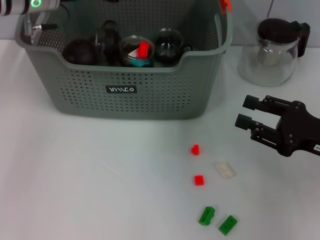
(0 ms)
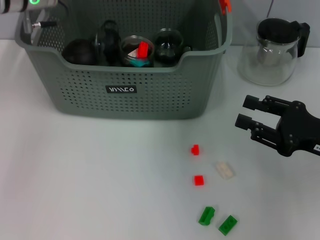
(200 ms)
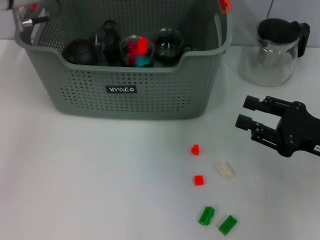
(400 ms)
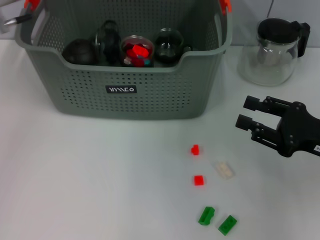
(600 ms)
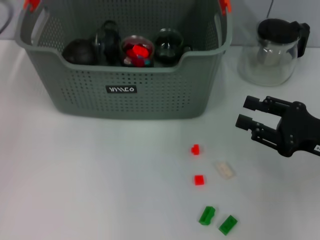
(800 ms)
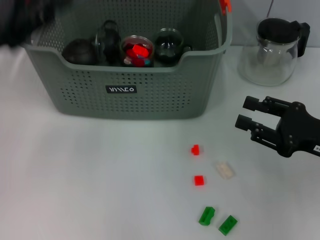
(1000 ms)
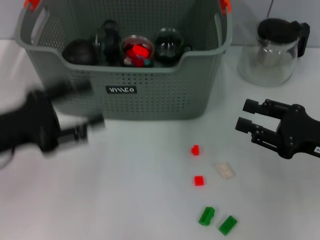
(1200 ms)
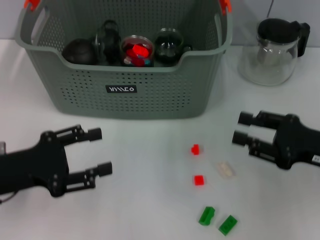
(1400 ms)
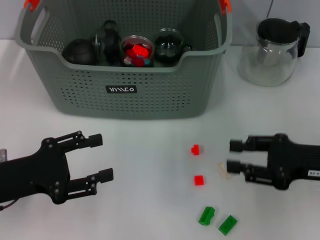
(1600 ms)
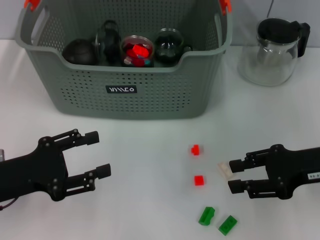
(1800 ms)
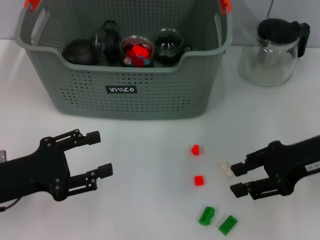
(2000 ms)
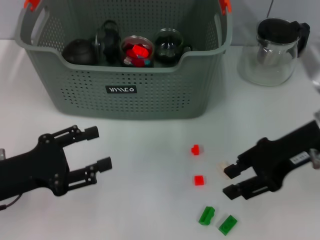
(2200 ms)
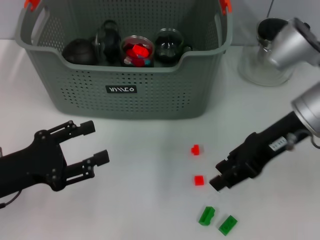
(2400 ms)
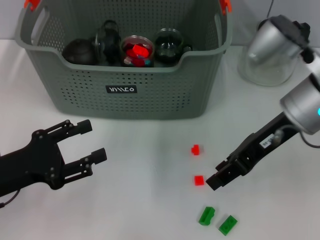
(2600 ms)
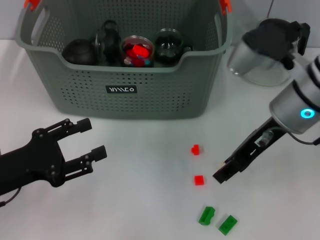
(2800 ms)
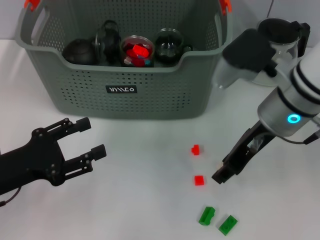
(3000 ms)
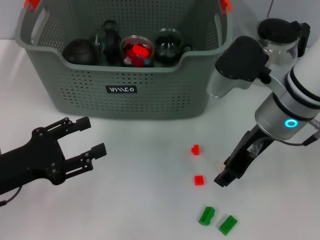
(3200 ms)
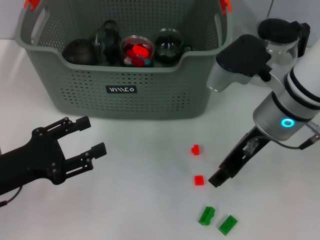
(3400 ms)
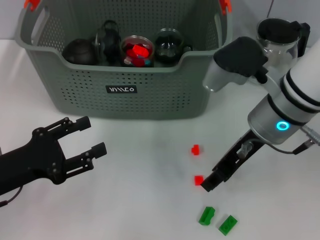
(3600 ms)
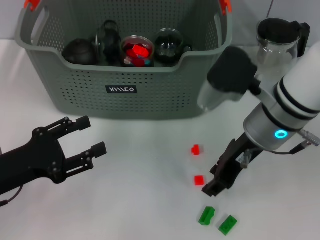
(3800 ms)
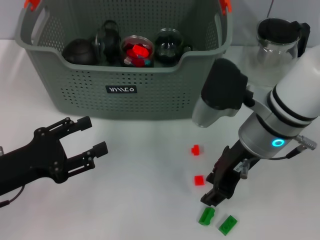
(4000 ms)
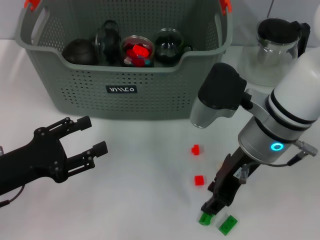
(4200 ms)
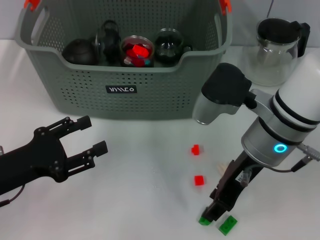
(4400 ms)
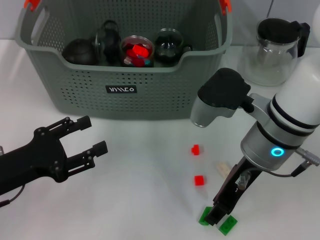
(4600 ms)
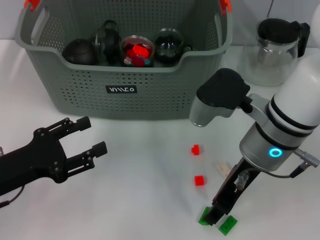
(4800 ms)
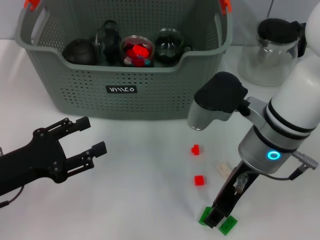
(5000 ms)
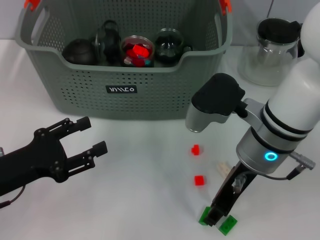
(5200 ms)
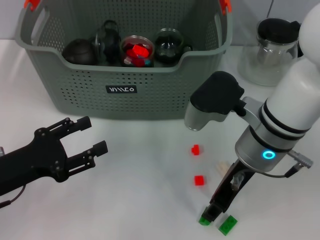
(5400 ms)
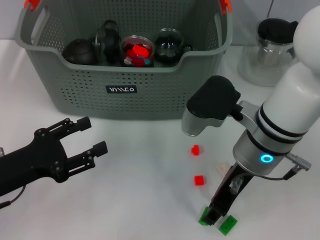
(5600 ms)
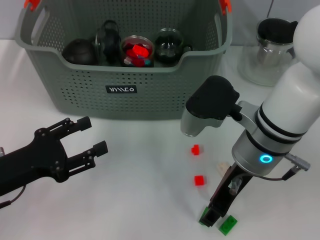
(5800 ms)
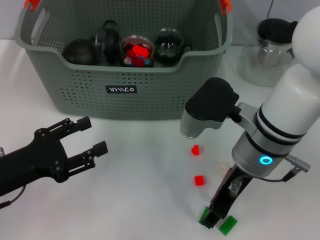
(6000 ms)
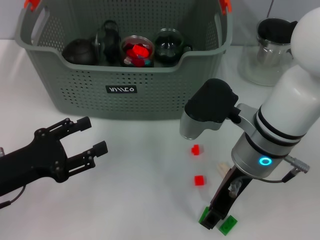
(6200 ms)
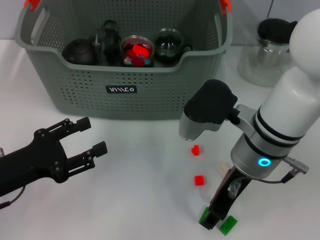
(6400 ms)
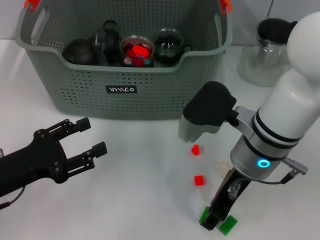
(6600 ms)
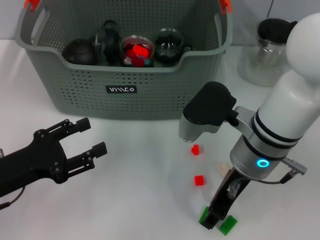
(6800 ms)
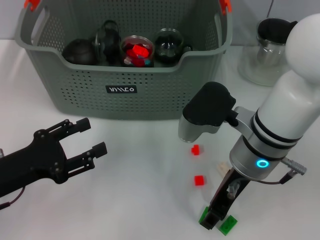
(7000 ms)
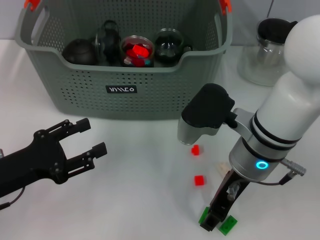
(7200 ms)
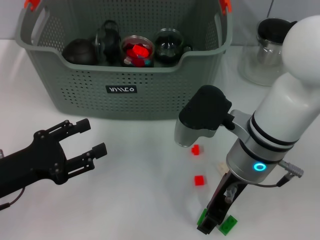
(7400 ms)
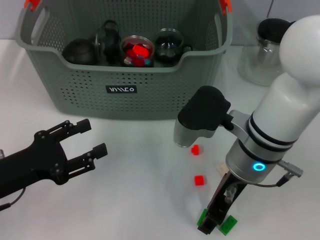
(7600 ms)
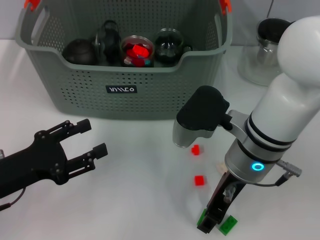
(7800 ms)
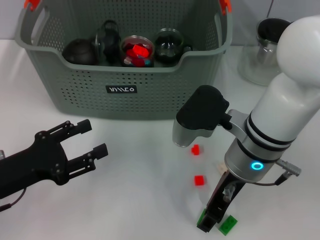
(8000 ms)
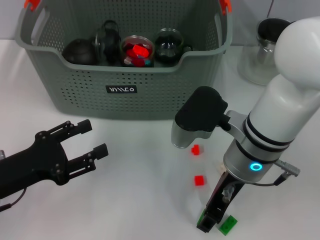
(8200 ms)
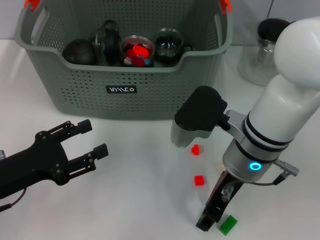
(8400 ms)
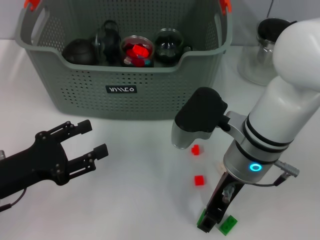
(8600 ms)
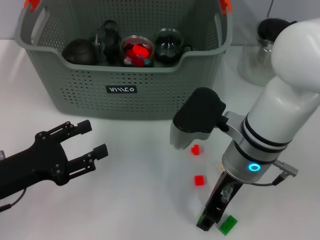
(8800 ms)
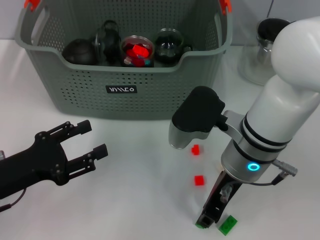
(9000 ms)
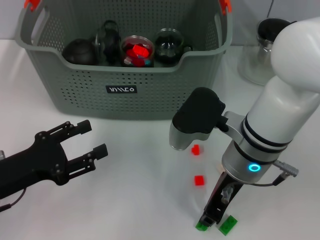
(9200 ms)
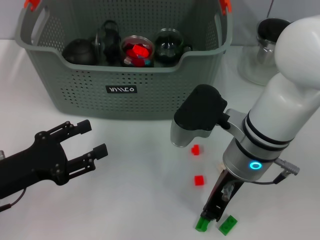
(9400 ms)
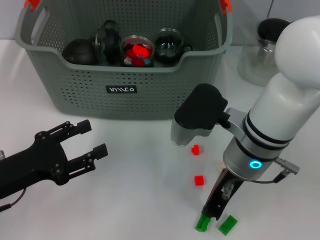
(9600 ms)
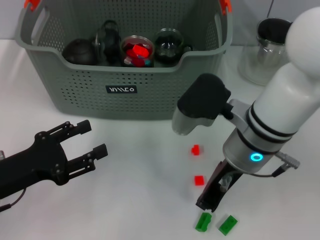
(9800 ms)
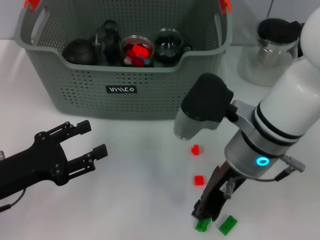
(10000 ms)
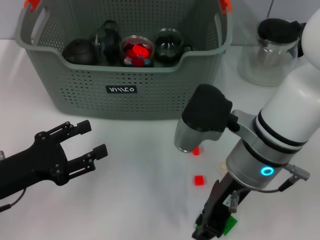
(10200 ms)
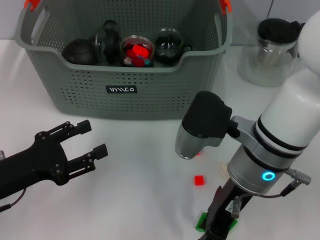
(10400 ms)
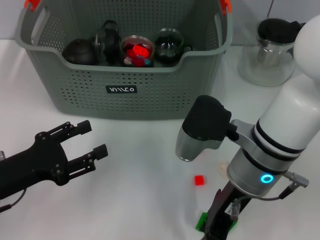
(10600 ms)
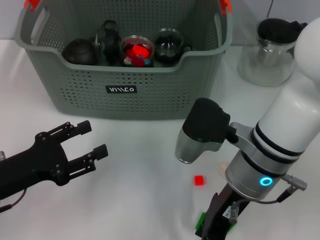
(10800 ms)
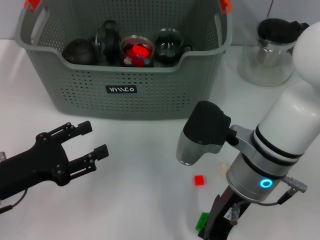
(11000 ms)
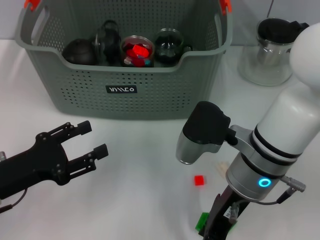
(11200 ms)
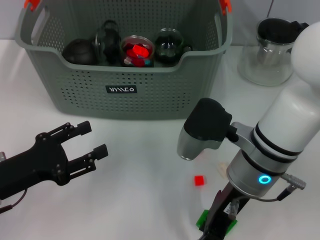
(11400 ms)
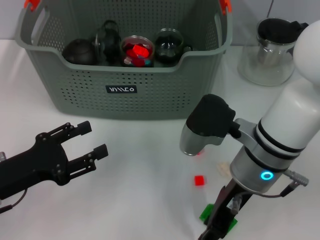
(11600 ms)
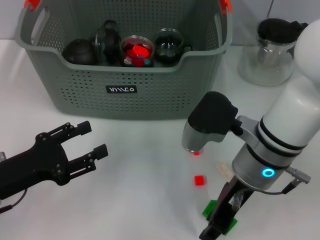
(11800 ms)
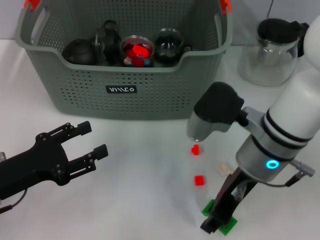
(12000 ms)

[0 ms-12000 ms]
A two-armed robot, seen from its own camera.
Task of the whole recording: pick up the teacup on the table and place it into the storage bin, pick up the block on the table and place it into the storage bin.
0 ms to 1600 ms: The left gripper moves backward and downward, roughly 25 cm.
1600 ms to 3000 ms: The right gripper shifts about 15 cm to the left, upward and forward.
3000 ms to 6000 ms: The grippers stay close to where they were, moving slightly.
6000 ms to 7600 ms: Both grippers stay put.
7600 ms to 9000 ms: The two grippers keep their place.
9000 ms to 10400 ms: The right gripper closes and opens again.
10400 ms to 12000 ms: There are only small adjustments of the grippers.

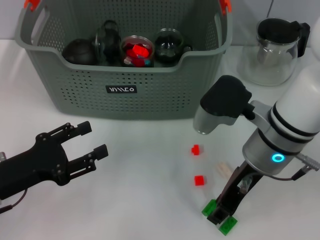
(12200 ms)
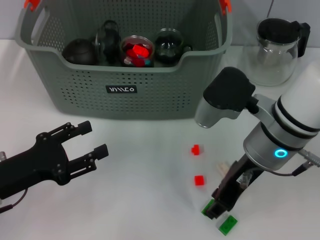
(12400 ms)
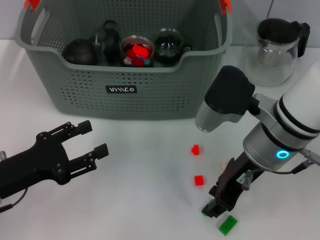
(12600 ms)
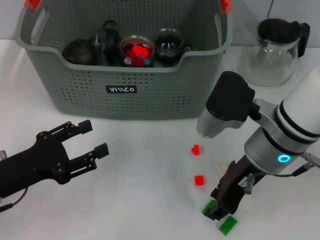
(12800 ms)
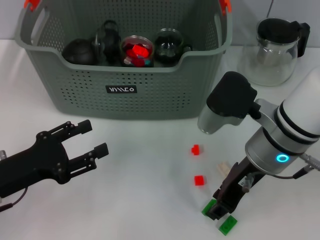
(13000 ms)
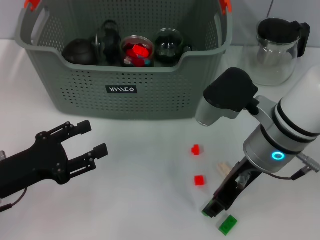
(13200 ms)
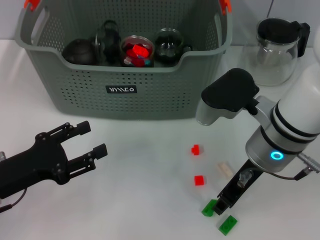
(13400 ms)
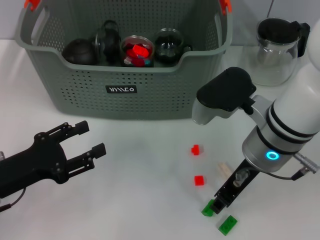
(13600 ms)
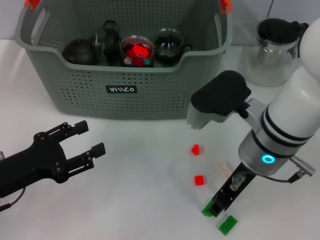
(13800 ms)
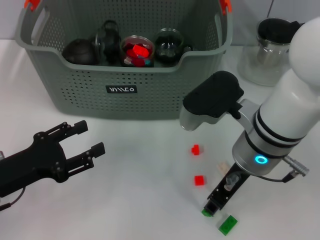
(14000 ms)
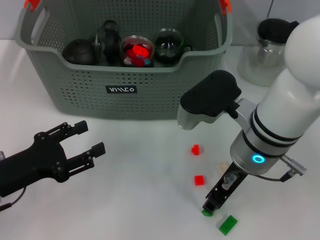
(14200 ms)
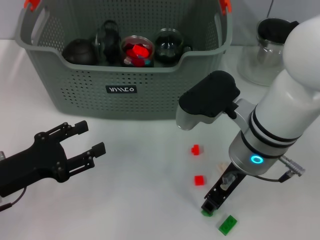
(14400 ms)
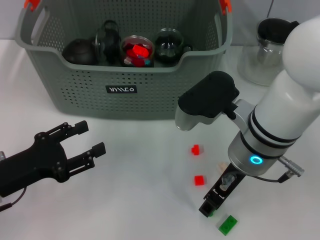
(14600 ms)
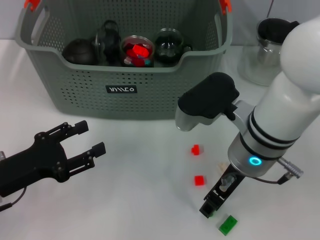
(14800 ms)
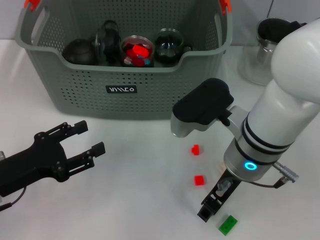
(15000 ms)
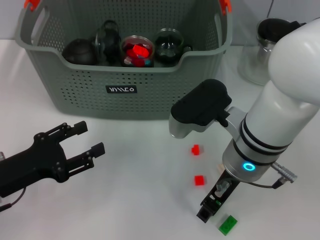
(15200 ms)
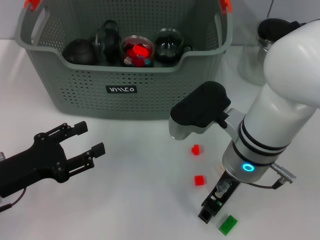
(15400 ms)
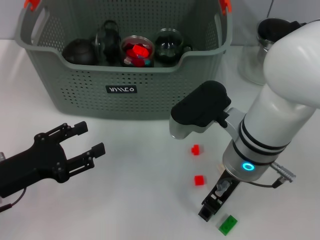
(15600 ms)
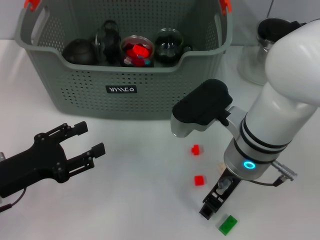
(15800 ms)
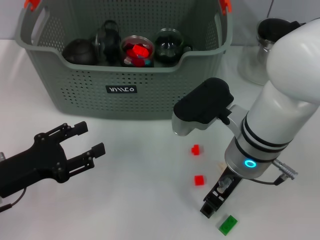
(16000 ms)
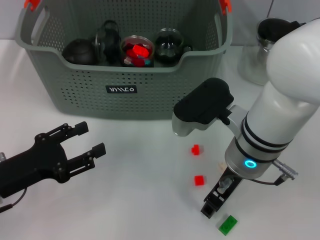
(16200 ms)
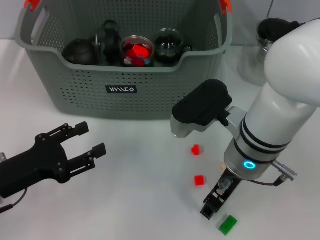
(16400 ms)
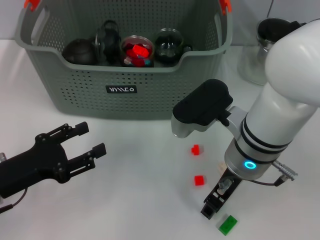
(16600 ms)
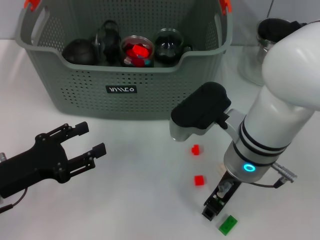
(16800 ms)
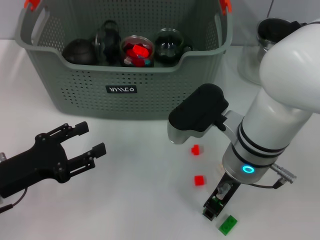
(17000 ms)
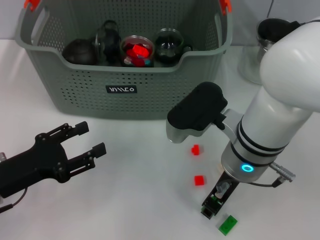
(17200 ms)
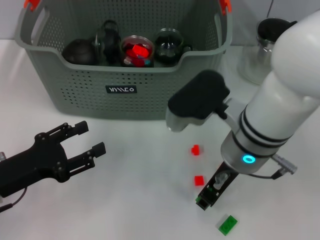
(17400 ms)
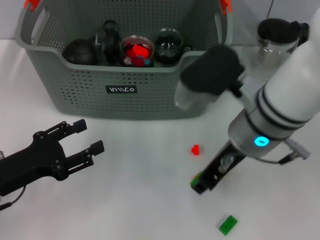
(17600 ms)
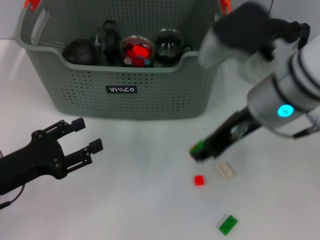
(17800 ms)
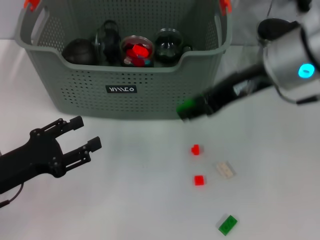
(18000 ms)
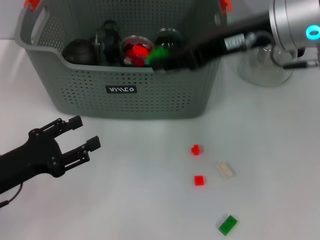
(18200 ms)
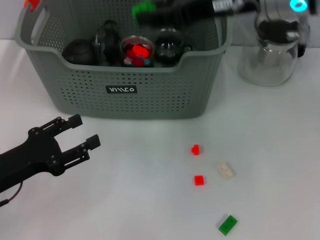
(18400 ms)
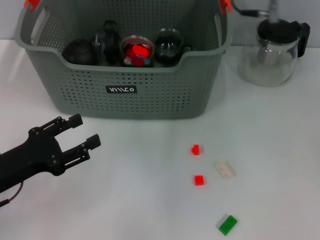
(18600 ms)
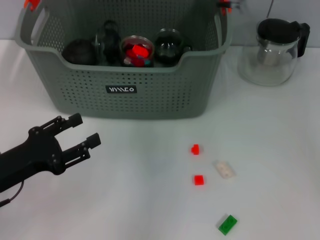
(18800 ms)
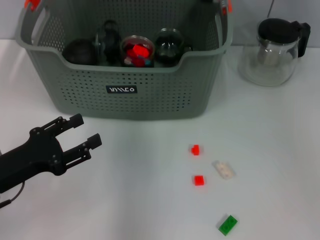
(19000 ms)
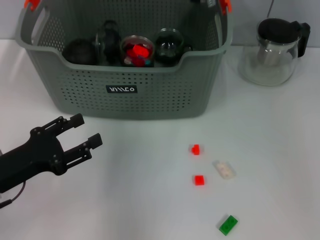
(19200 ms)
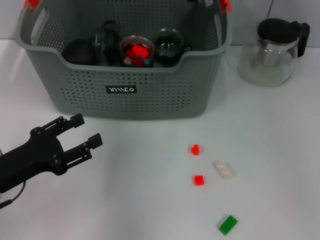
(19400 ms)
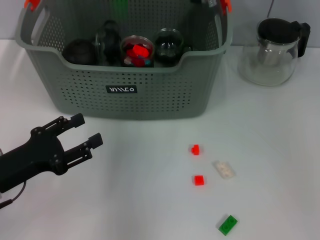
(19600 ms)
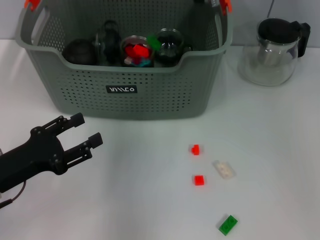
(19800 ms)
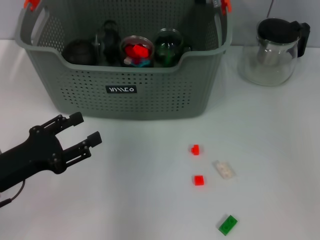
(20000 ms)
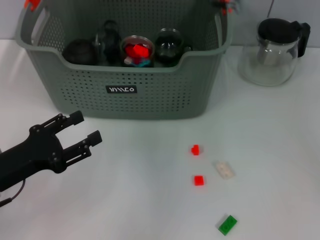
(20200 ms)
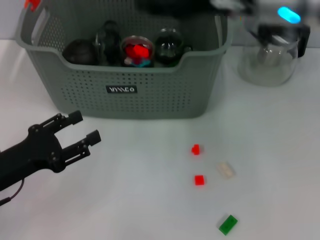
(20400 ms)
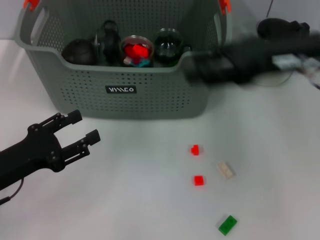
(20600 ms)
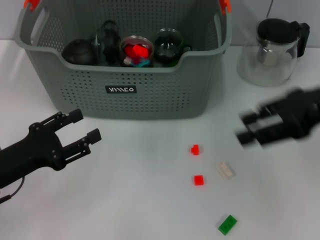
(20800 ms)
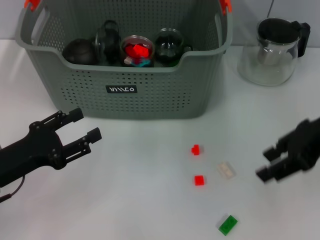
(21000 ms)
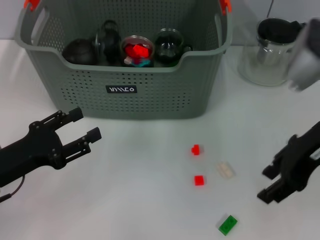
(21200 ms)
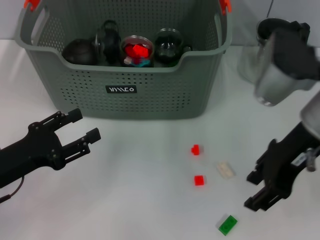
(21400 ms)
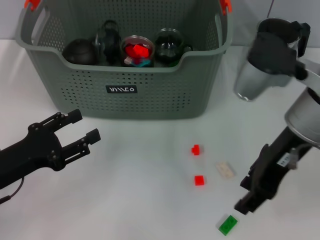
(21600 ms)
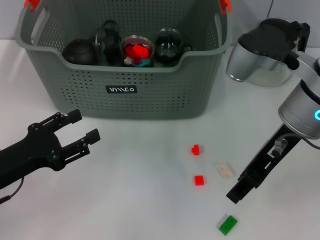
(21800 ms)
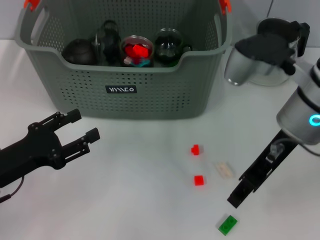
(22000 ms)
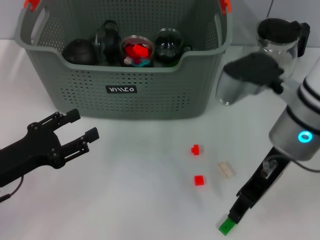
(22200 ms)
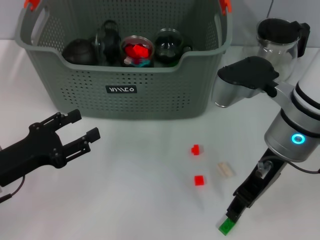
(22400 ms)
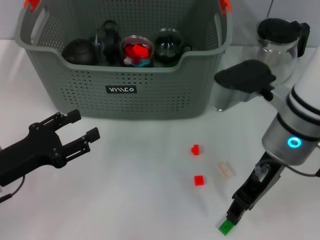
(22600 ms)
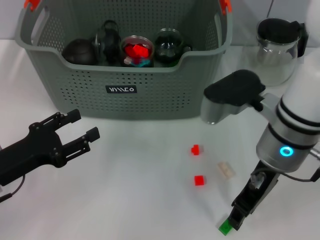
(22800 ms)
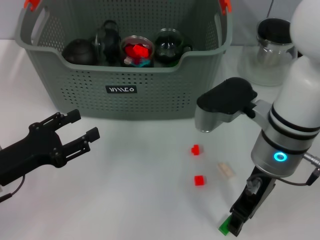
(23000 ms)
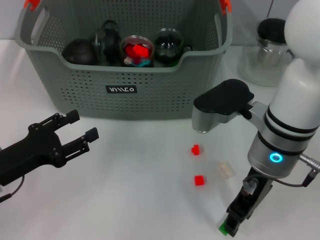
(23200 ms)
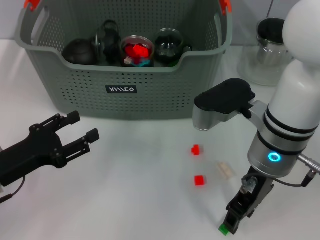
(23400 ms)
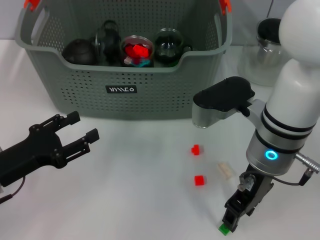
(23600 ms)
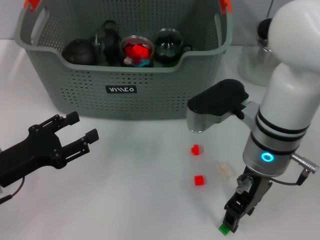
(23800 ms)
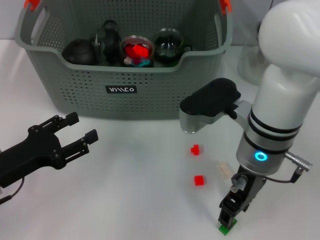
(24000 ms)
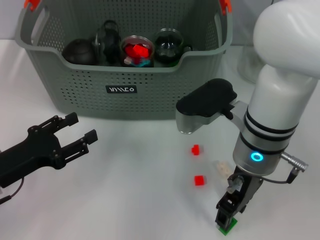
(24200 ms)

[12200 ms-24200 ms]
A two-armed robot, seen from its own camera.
Task of the whole recording: pick up the teacup on the table and place it into the storage bin, pick up the block on the table and place it into the storage bin.
Step, 12200 ms to 17000 ms: Grasp the green block with right gripper.
Step, 17200 ms to 19800 ms: Place the green block in the storage box with right gripper.
12200 ms to 15200 ms: The grippers stay close to where they were, moving slightly.
15200 ms to 16600 ms: The two grippers keep their place.
16600 ms to 18200 ms: The right gripper is displaced upward by approximately 15 cm.
18200 ms to 19800 ms: The right gripper goes about 15 cm forward and to the left.
19800 ms to 21200 ms: The right gripper is displaced to the right and backward by roughly 25 cm.
21200 ms to 22600 ms: The right gripper shifts roughly 5 cm to the left.
